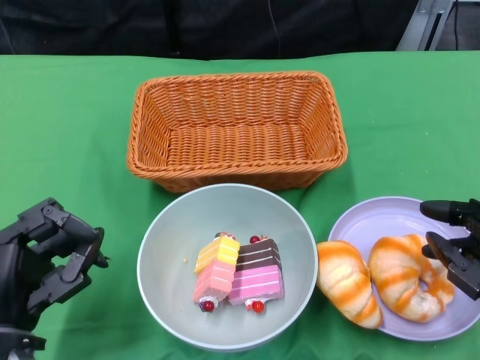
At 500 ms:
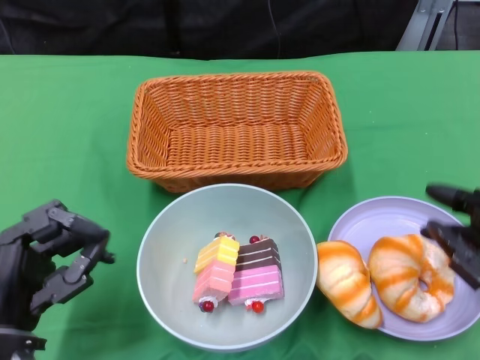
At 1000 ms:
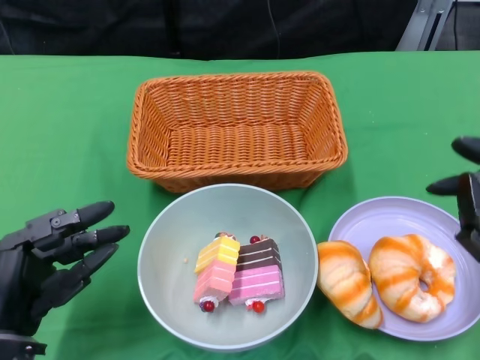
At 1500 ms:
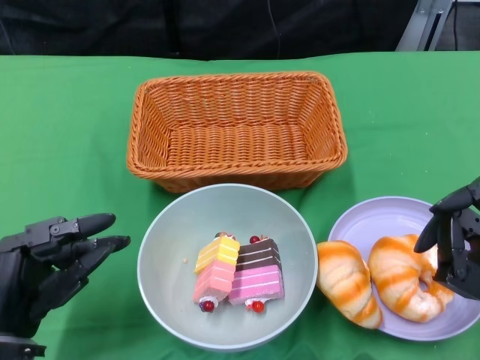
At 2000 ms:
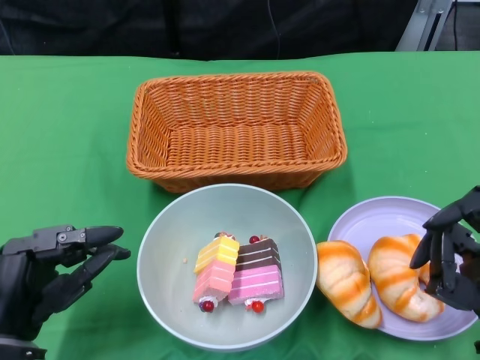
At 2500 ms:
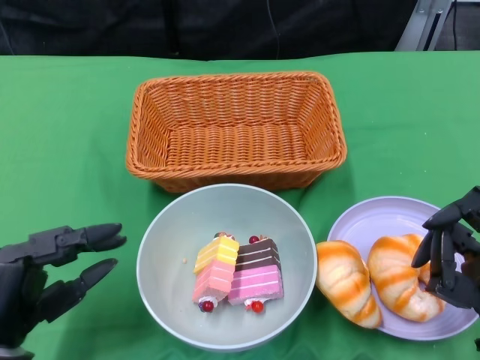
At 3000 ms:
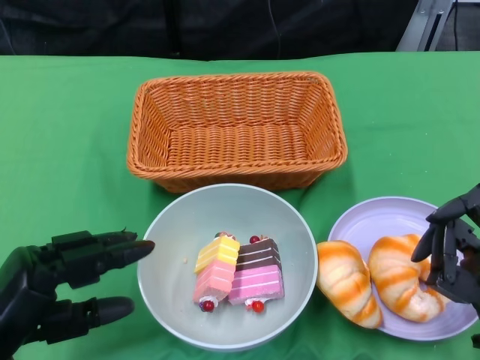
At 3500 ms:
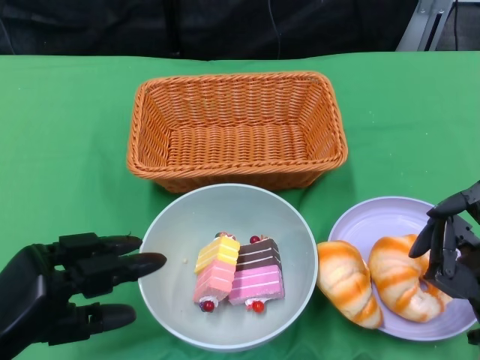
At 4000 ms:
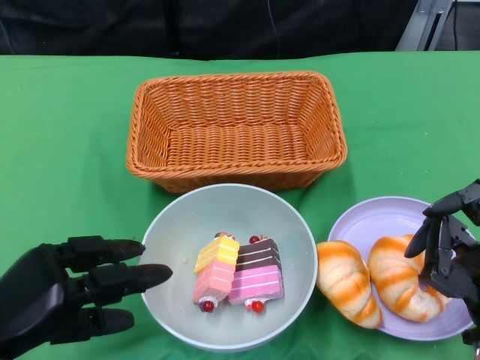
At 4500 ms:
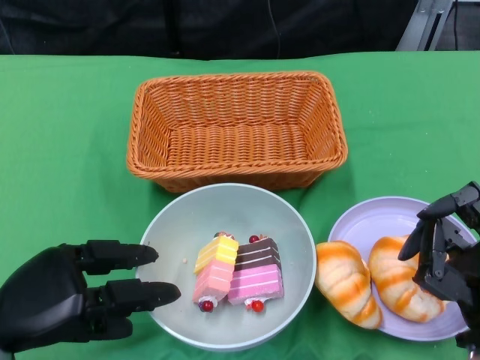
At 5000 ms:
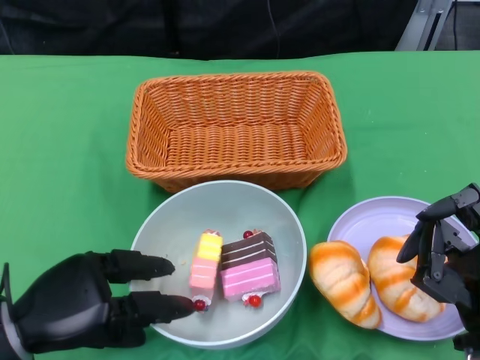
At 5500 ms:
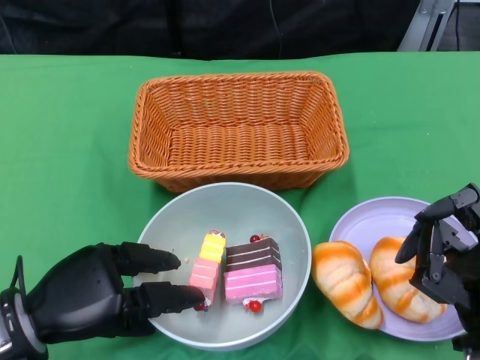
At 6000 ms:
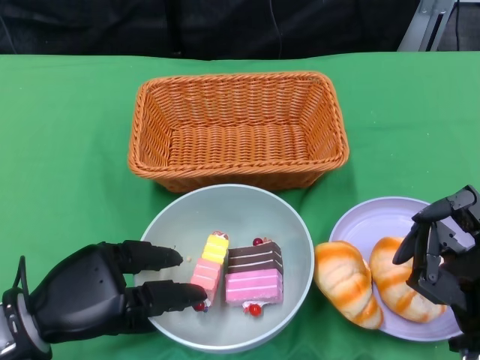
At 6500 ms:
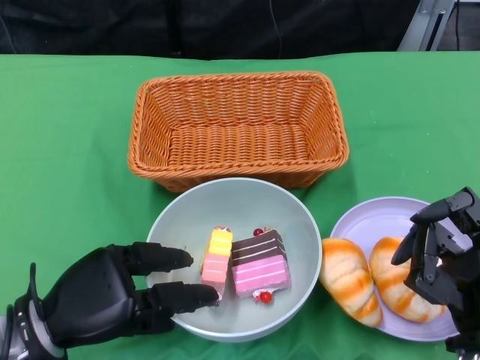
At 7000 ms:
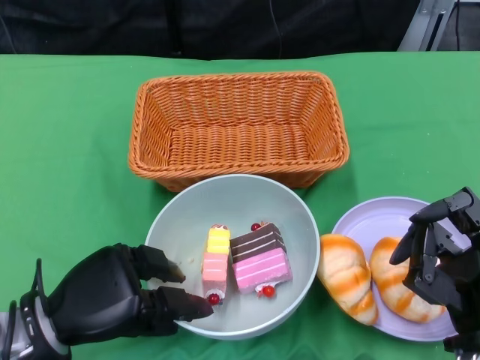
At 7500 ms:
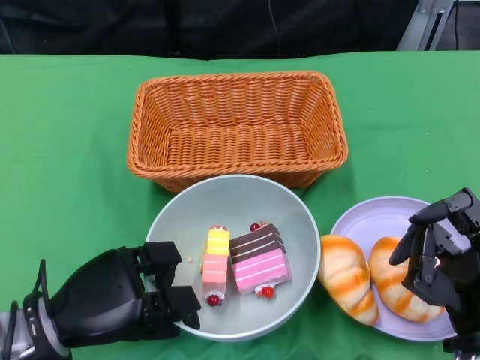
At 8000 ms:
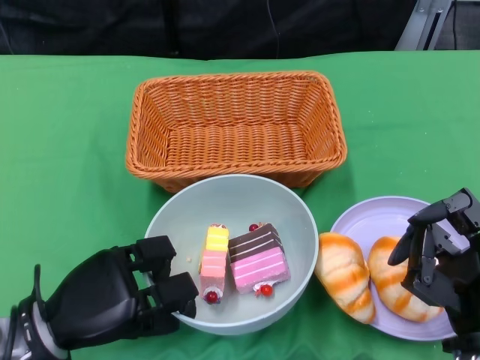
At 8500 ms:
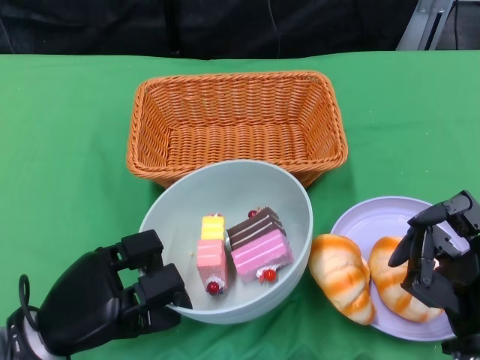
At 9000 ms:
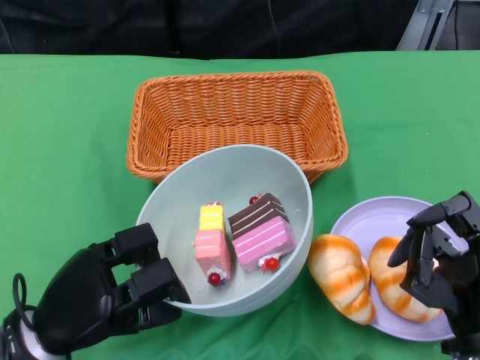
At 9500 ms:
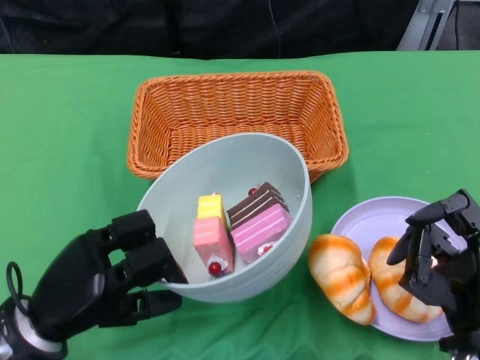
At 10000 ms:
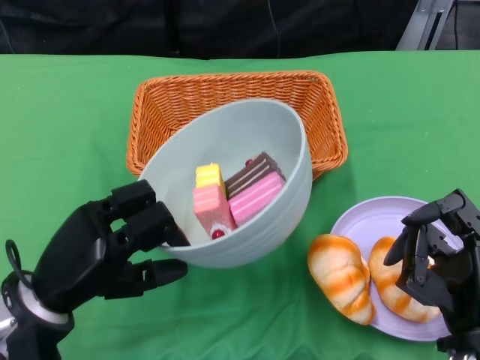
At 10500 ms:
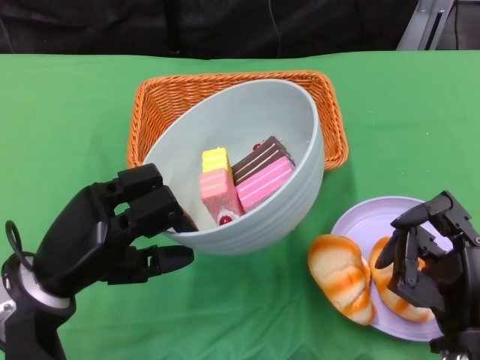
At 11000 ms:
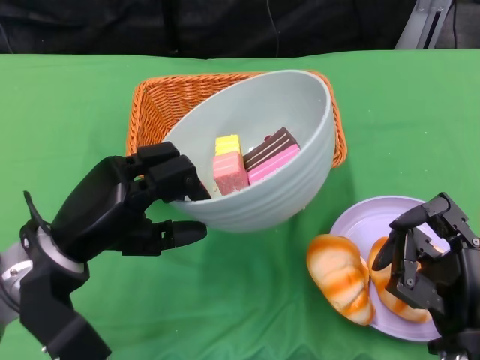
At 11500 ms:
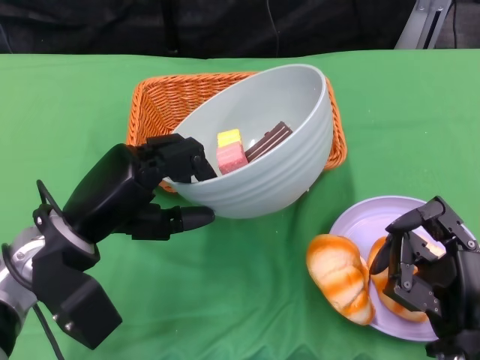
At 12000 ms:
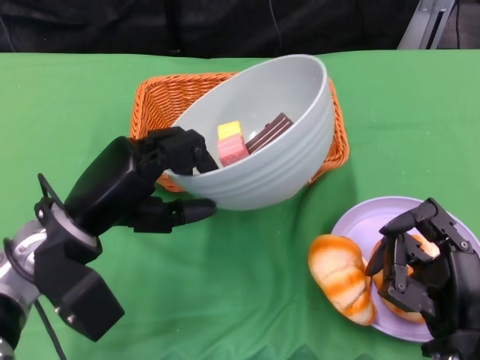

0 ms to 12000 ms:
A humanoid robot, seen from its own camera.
Step, 500 ms to 8000 ms: Grasp the bowl with the left gripper.
6000 ms to 8000 ms: The hands move only a little.
10000 ms to 12000 ms: The left hand shifts by about 5 cm.

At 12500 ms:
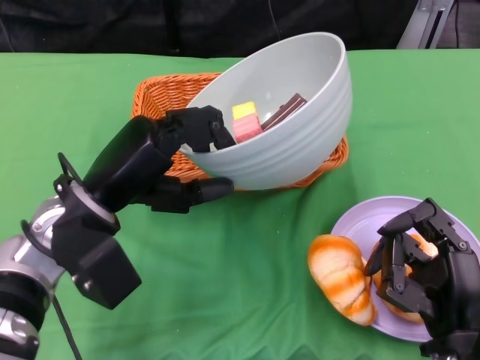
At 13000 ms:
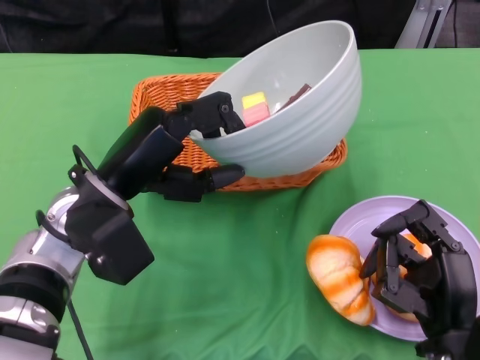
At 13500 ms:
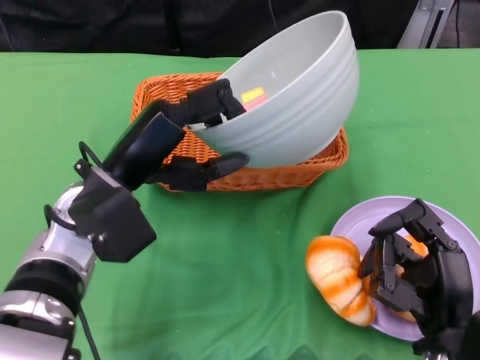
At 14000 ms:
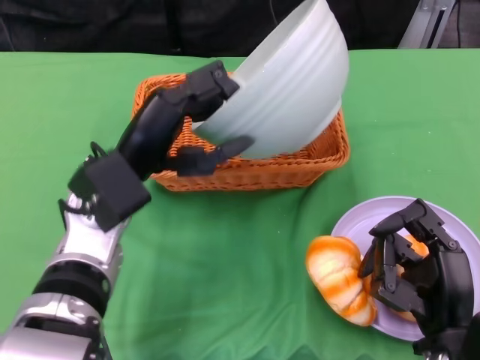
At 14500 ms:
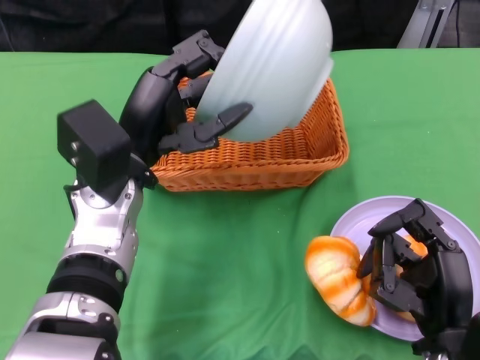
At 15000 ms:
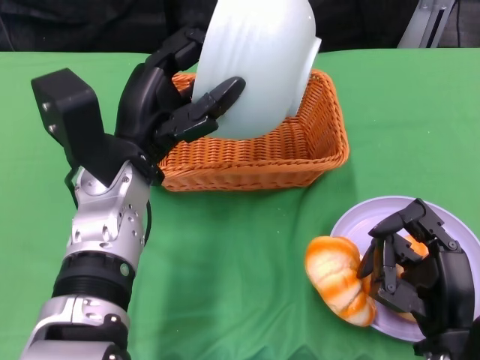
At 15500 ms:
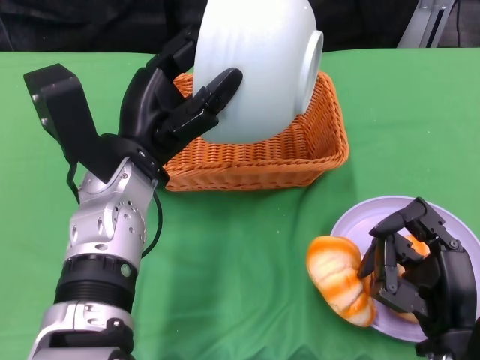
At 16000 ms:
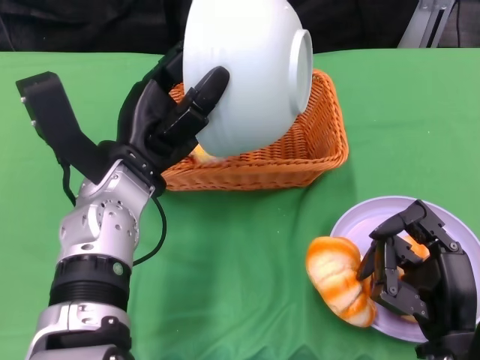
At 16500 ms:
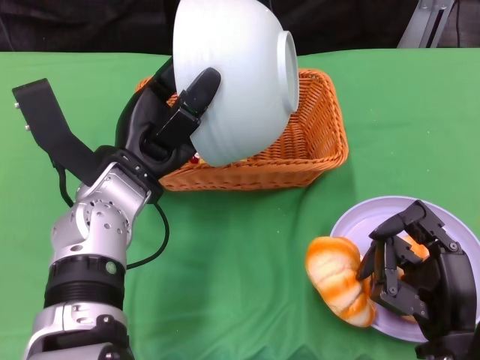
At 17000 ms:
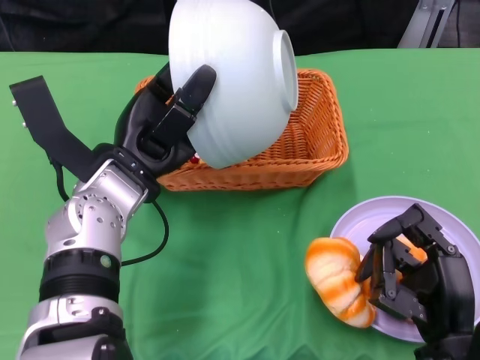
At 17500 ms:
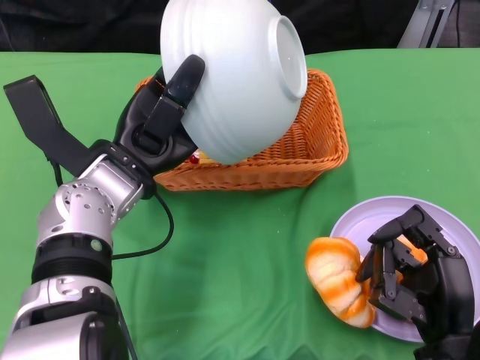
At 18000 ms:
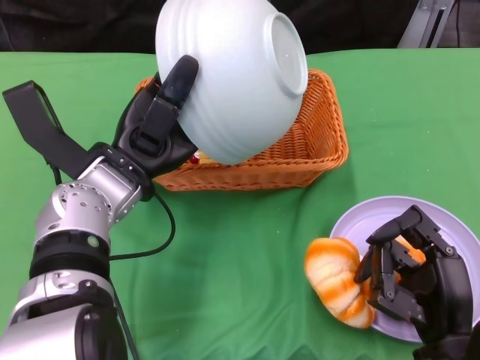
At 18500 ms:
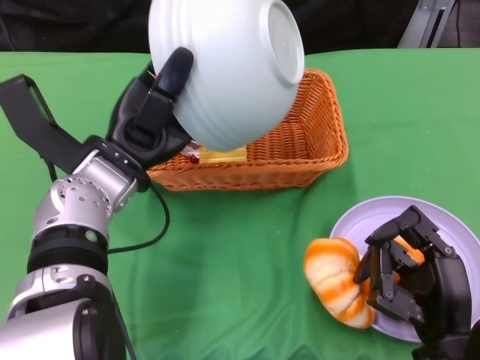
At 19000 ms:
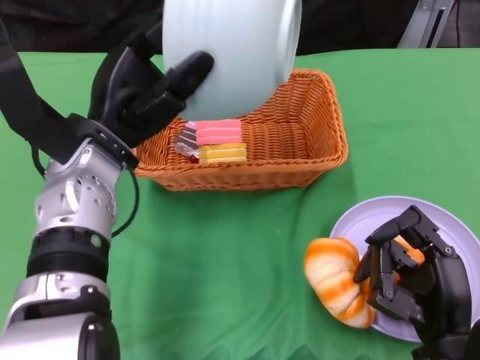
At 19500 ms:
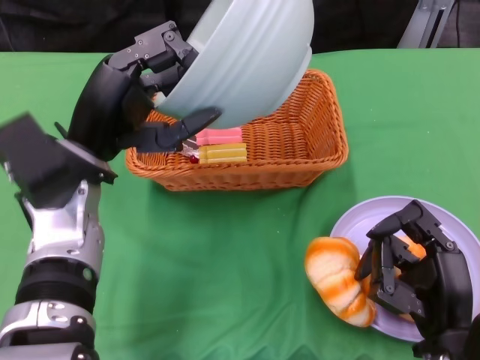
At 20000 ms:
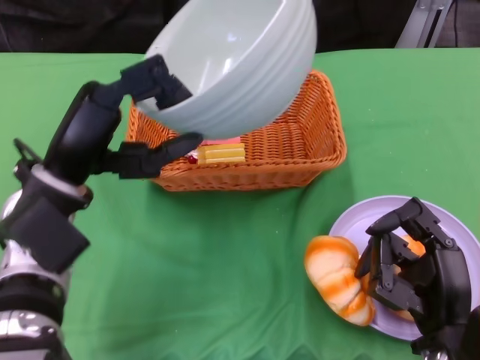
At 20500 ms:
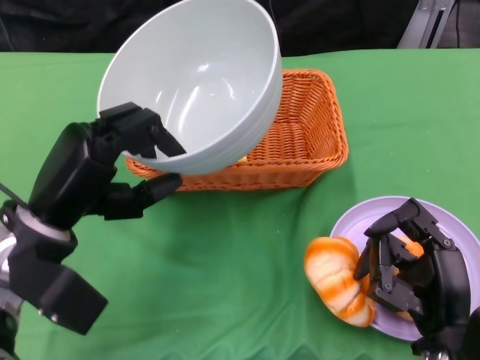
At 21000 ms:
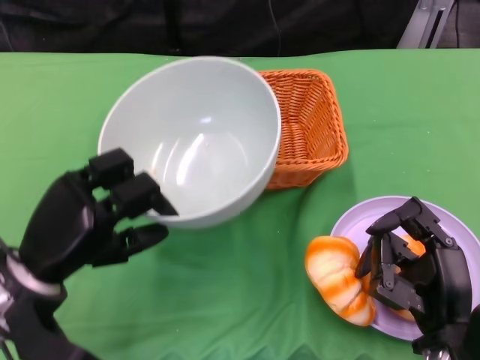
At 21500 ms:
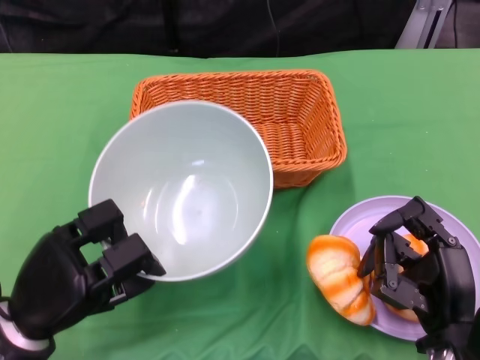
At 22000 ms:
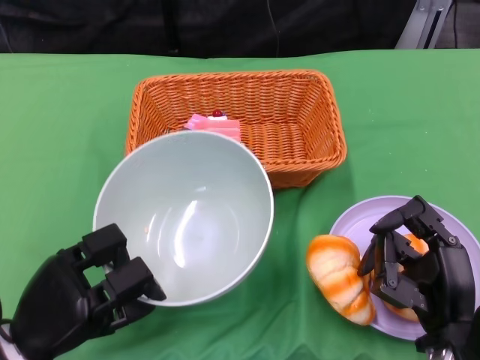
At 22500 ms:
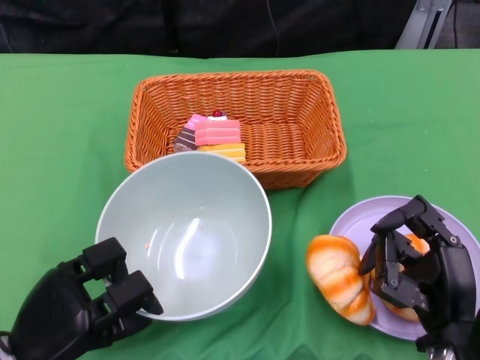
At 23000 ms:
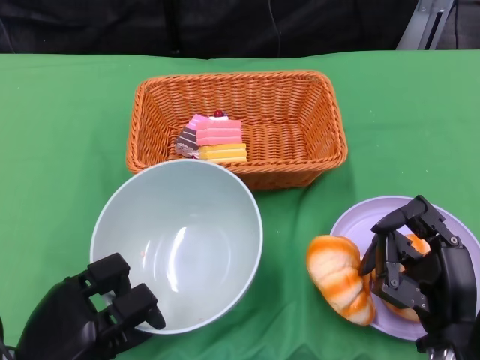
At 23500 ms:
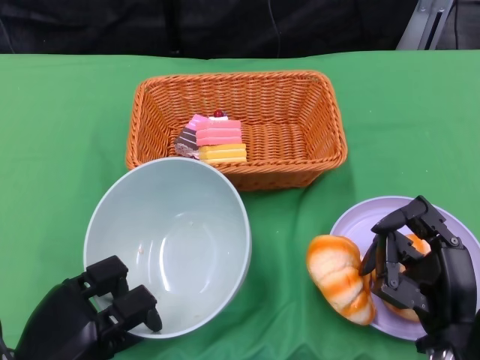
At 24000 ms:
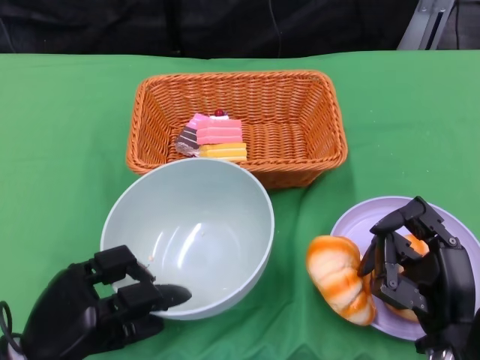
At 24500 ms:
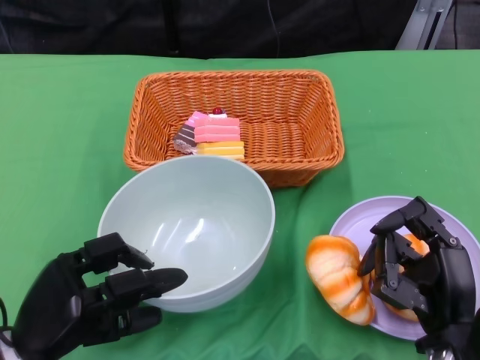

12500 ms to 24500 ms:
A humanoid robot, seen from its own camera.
Step, 12500 ms to 19000 ms: Pour the cake into the basket with the left gripper.
18500 ms to 20500 ms: The left hand goes about 10 cm backward and to the left.
20500 ms to 22500 ms: The left hand shifts roughly 15 cm downward and backward.
22500 ms to 24500 ms: There are only small adjustments of the hands.

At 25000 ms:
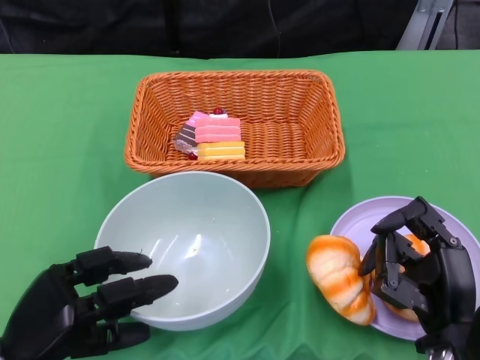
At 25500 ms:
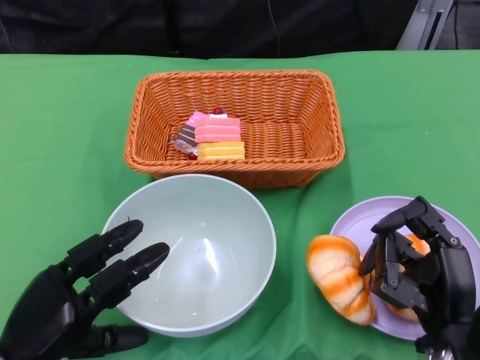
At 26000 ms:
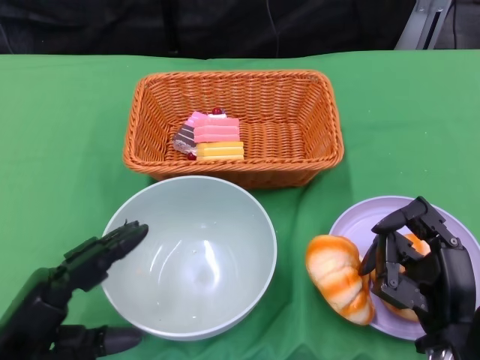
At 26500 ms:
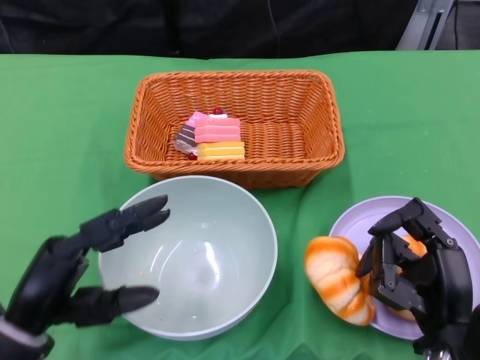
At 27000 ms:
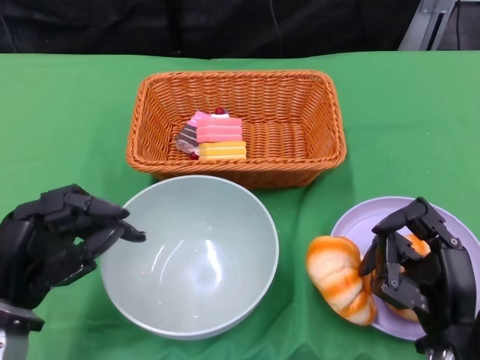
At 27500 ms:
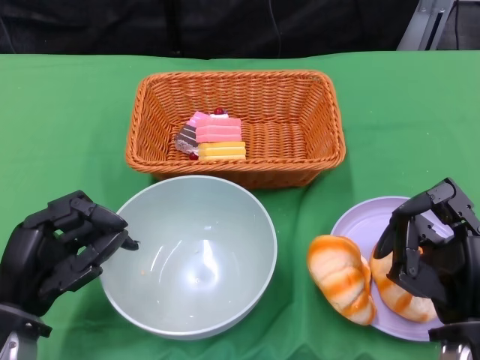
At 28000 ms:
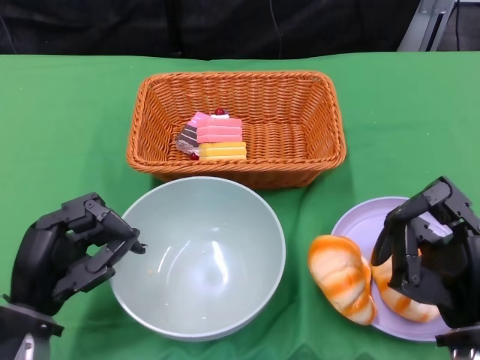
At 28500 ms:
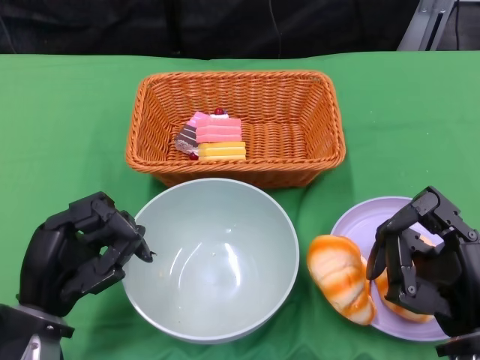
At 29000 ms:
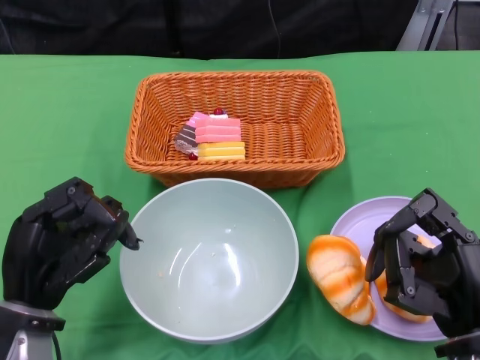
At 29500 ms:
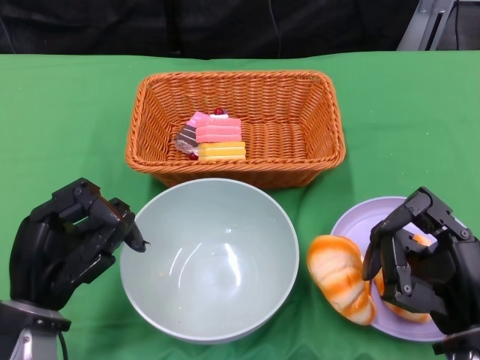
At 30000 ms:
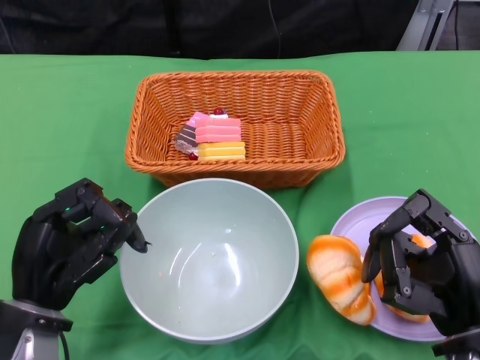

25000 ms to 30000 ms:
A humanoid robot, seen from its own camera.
Step, 25000 ms to 27500 ms: Place the bowl on the table with the left gripper.
27500 ms to 30000 ms: The hands move only a little.
